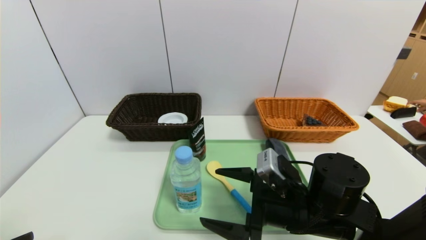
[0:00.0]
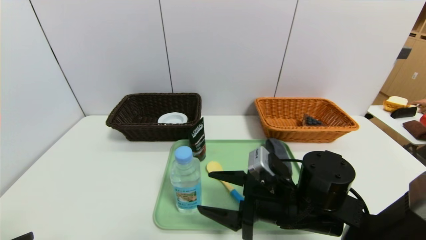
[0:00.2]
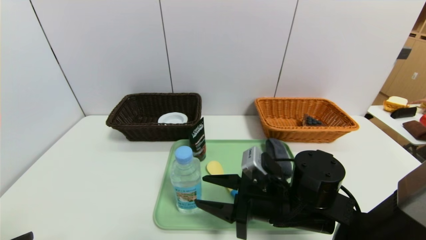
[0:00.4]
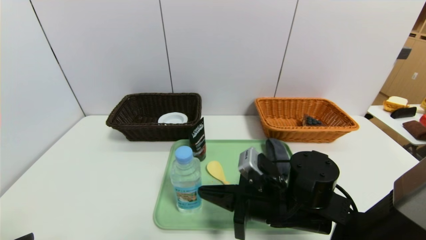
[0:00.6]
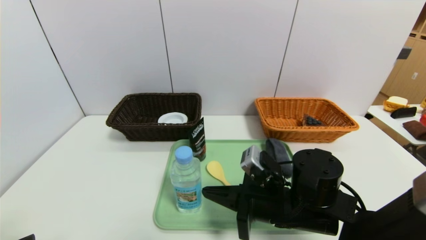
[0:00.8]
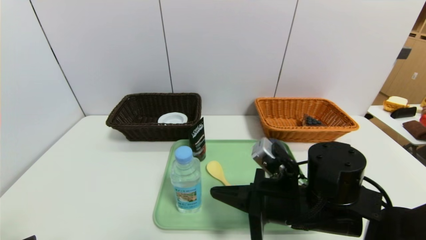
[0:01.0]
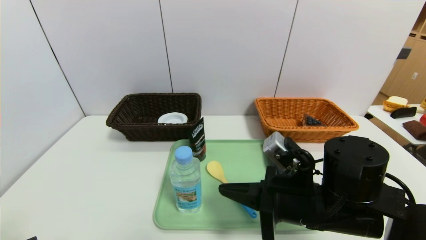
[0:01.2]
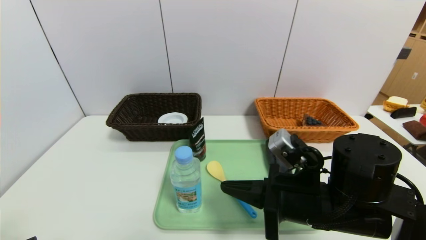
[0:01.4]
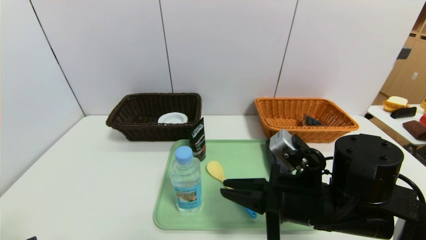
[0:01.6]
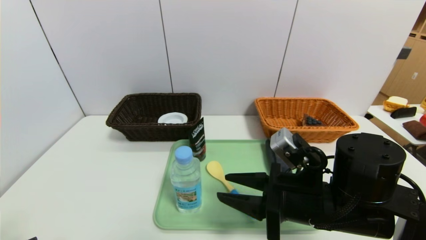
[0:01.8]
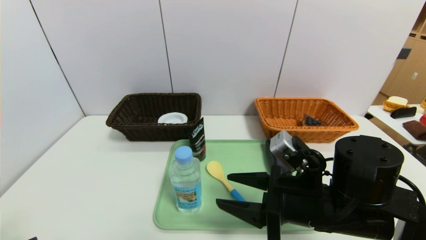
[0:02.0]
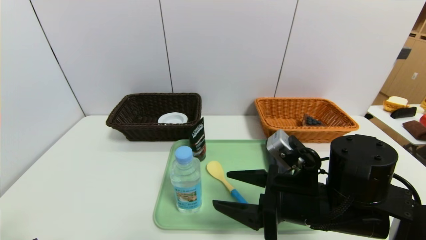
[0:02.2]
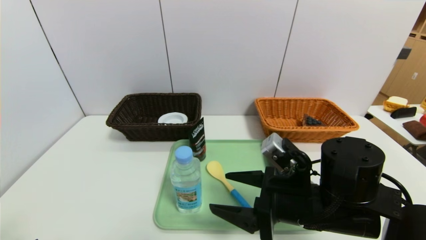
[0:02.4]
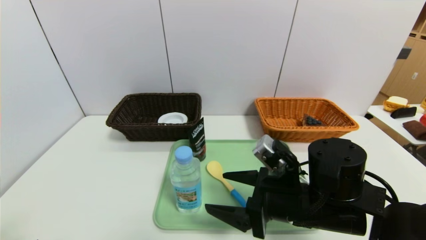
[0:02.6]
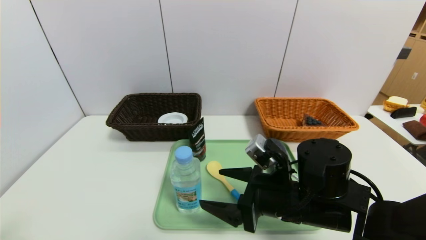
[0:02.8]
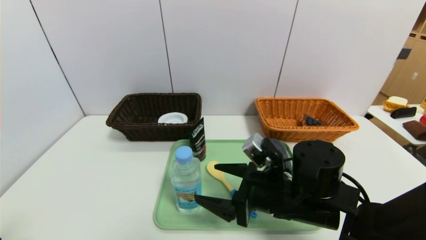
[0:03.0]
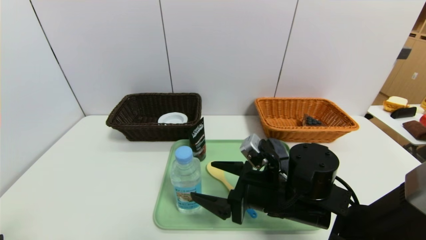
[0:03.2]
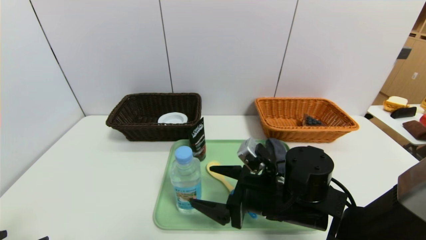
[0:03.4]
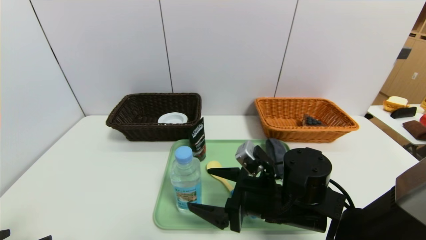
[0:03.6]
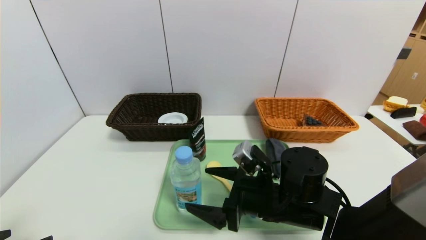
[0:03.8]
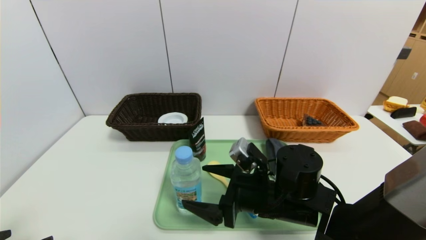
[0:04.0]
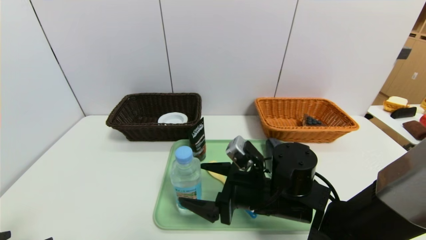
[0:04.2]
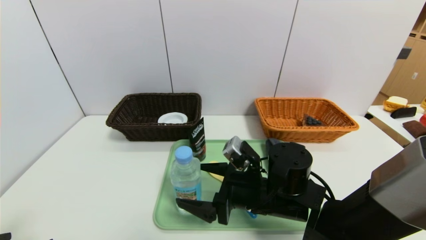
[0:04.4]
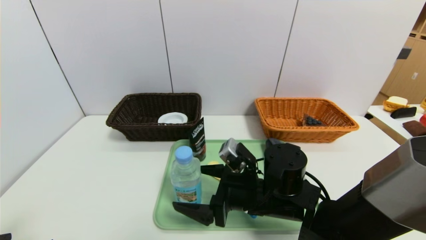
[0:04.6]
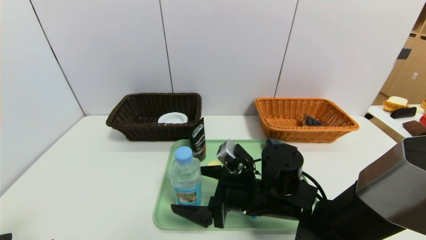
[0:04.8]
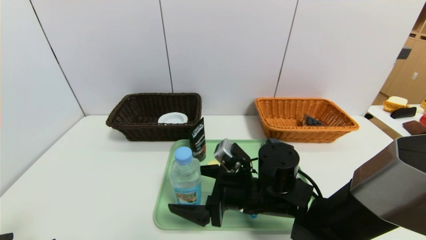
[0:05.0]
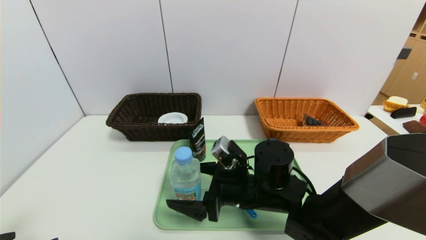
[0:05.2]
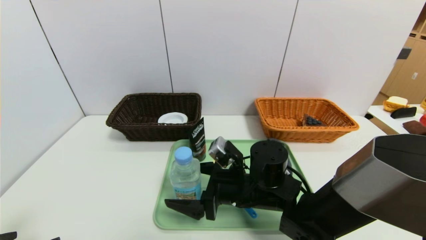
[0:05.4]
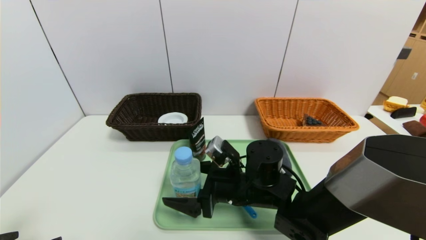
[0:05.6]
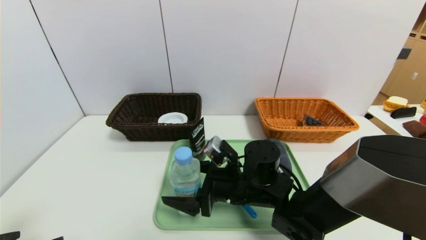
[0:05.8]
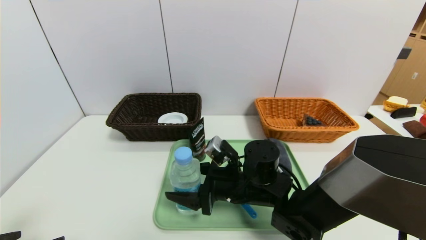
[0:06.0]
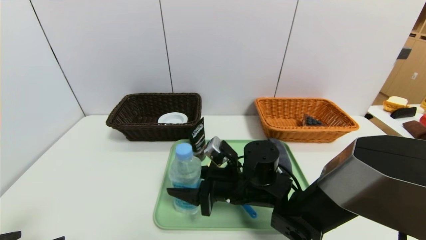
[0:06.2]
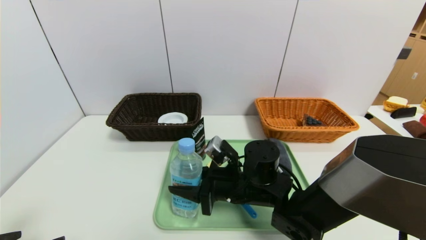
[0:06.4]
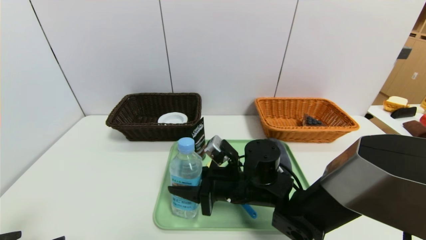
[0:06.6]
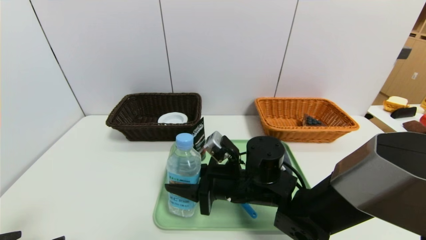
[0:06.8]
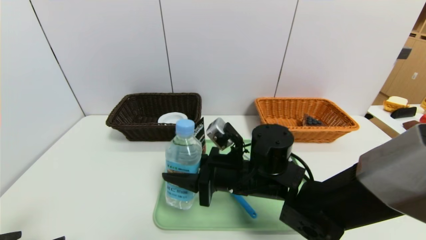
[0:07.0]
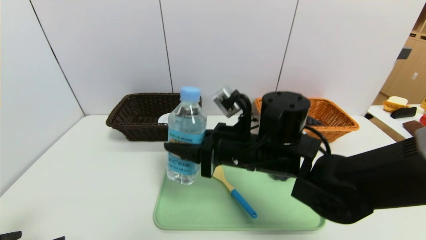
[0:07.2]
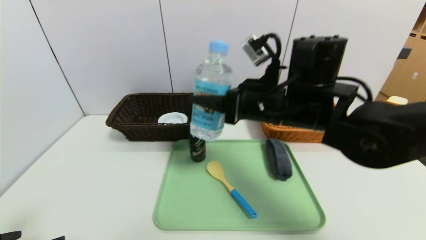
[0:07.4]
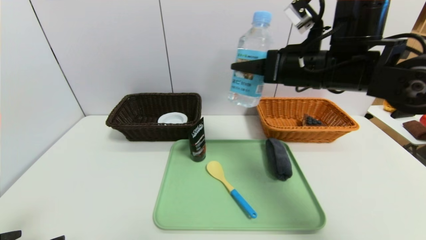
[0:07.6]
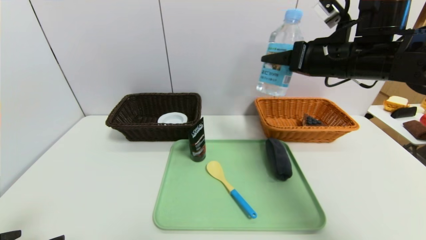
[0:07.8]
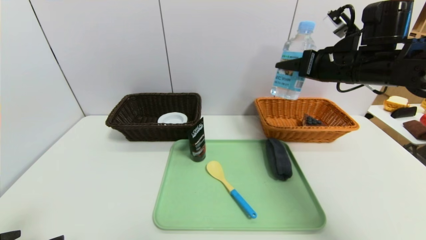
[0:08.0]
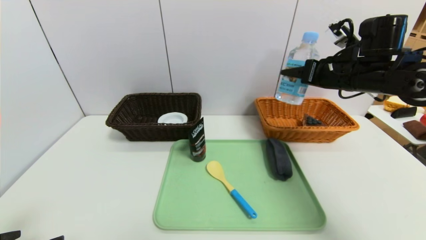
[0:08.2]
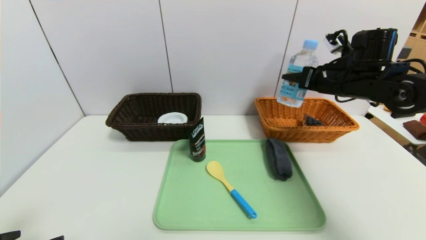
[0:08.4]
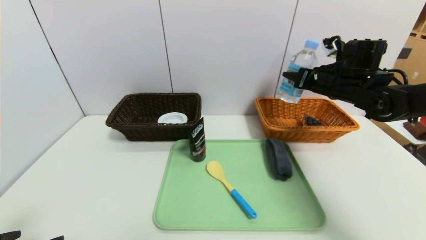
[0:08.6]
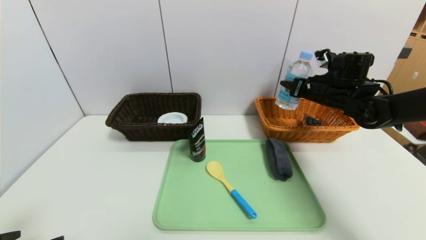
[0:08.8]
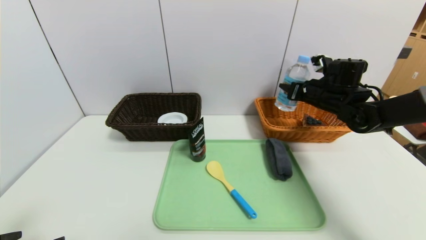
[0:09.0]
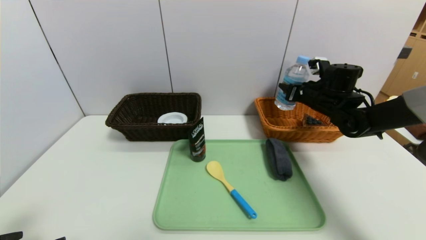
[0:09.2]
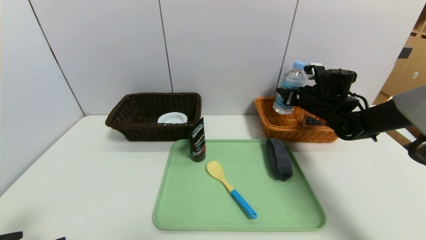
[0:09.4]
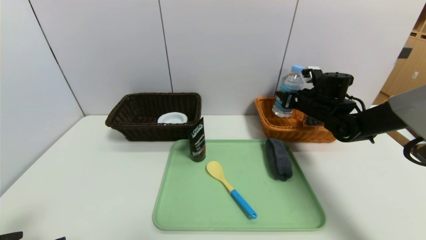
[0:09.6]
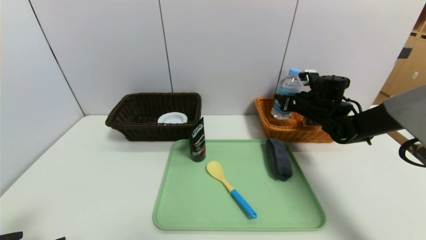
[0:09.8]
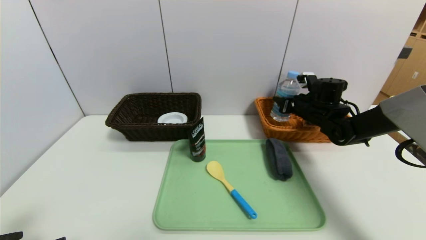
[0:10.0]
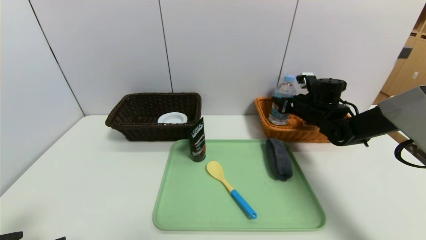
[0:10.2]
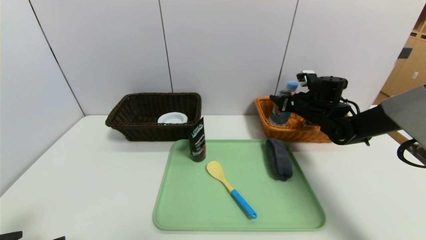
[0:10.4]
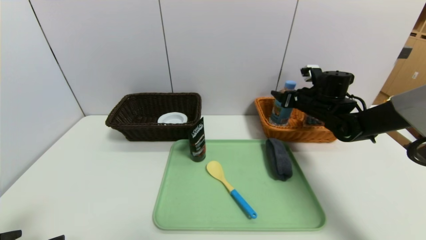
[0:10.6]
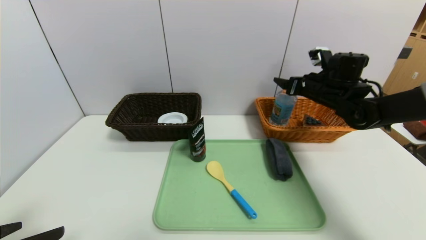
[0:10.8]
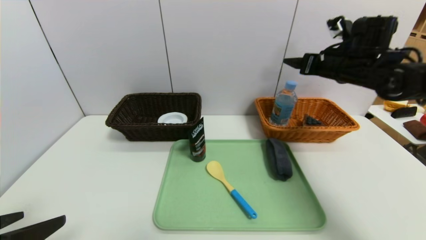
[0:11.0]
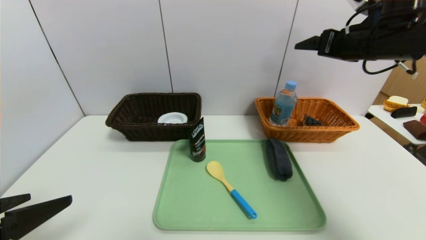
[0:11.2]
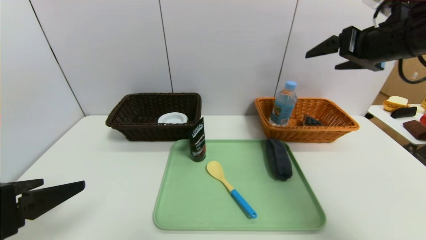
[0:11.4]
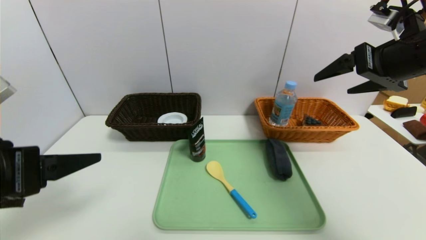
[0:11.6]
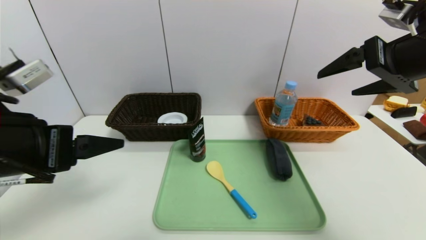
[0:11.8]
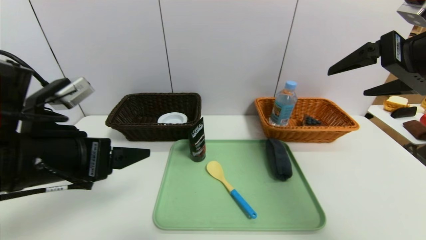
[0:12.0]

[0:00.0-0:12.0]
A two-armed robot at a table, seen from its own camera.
Task of the whole recording: place the food in the right basket with the right gripper, and place the non food items in the left basket with the left gripper.
Step, 0.0 to 11.2 s: Grasp the soda water and put it in the right basket.
0.0 to 1.6 s: The right gripper closes its fingers.
1.6 to 3.0 s: The right gripper changes place by about 5 cm, and opens its fingers.
3.0 to 4.4 s: The grippers move only a little.
4.4 to 6.0 s: The grippers make only small movements.
6.0 to 7.6 s: The right gripper is displaced upward and to the right by some 25 cm, and closes its fingers.
7.6 to 9.0 s: The right gripper shifts roughly 20 cm forward, downward and to the right.
9.0 to 10.4 s: The right gripper opens.
10.4 to 12.0 s: The right gripper moves backward and upward, about 30 cm, and opens, while the left gripper shifts some 15 cm forward, to the right and upward.

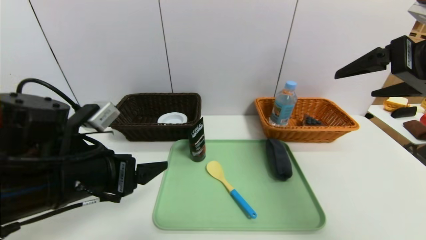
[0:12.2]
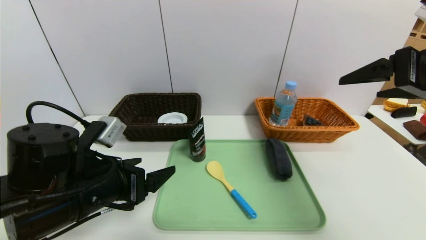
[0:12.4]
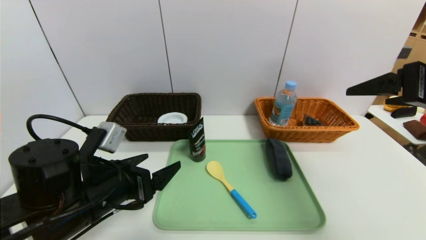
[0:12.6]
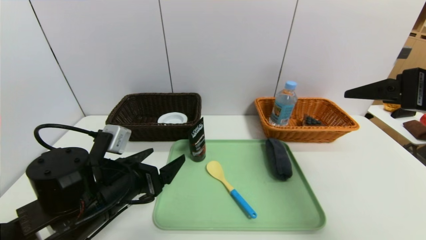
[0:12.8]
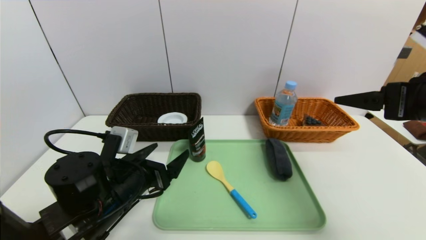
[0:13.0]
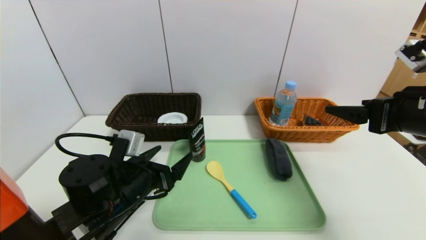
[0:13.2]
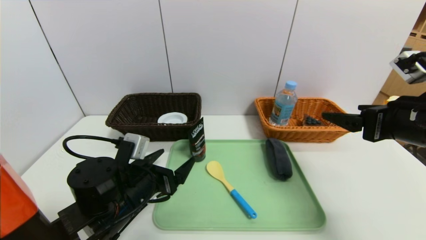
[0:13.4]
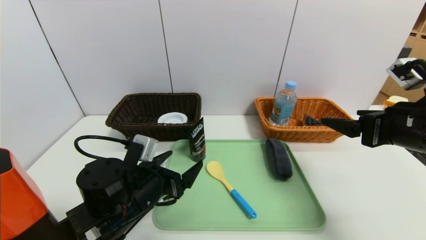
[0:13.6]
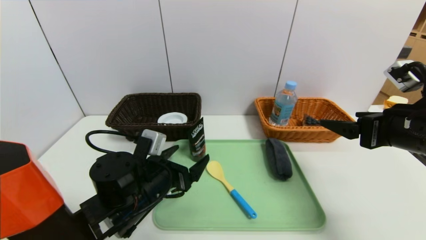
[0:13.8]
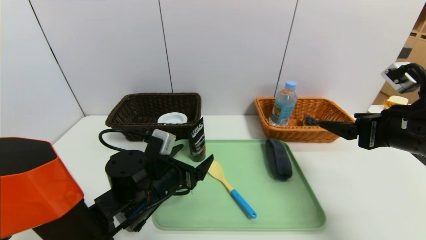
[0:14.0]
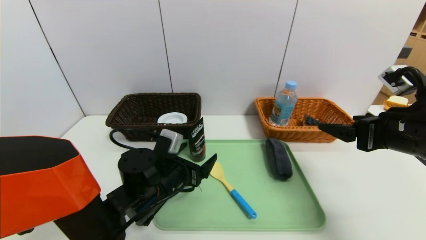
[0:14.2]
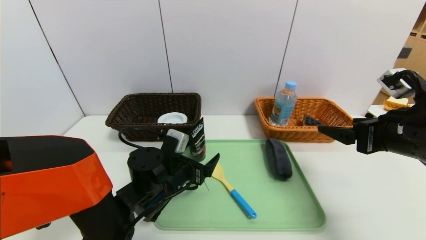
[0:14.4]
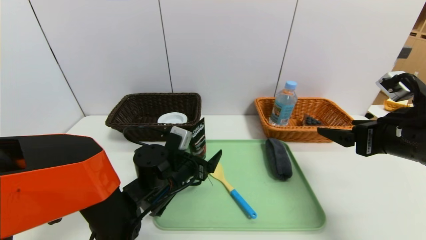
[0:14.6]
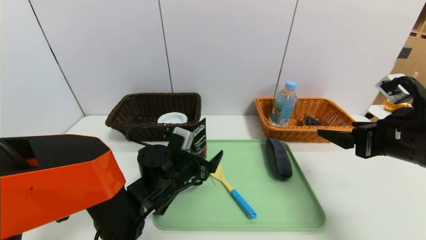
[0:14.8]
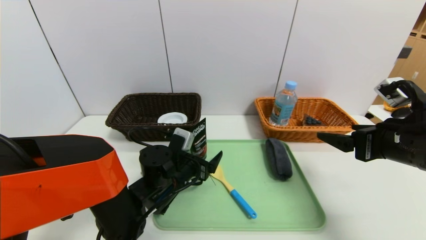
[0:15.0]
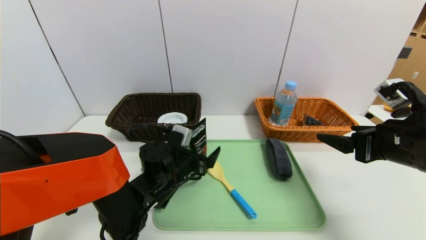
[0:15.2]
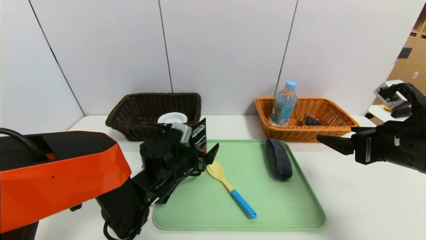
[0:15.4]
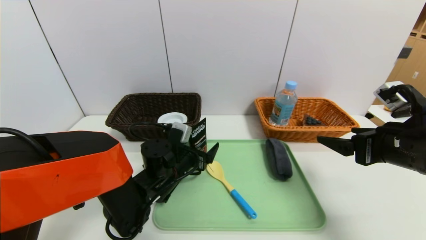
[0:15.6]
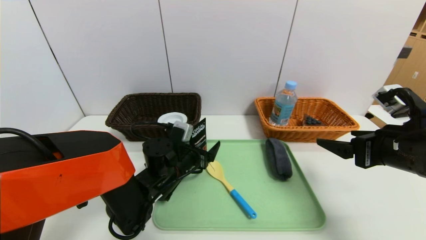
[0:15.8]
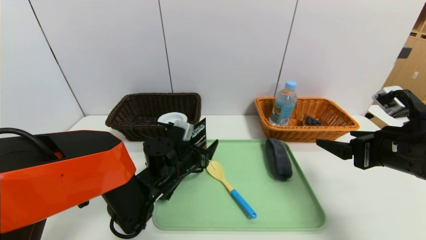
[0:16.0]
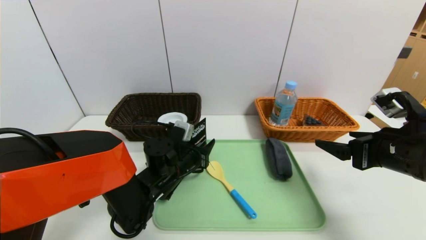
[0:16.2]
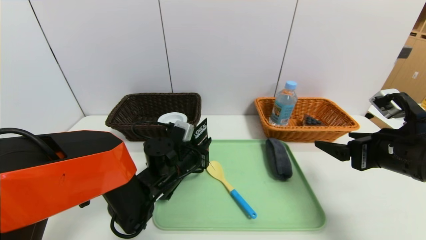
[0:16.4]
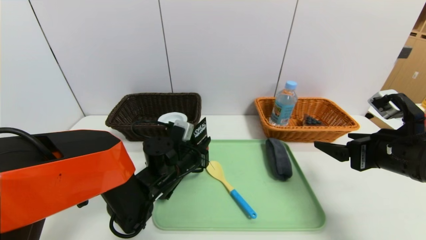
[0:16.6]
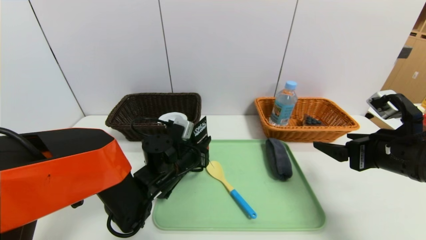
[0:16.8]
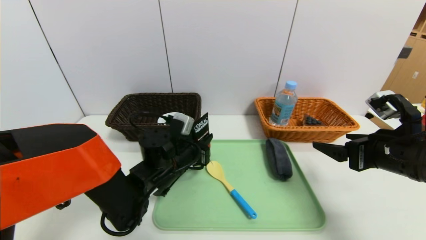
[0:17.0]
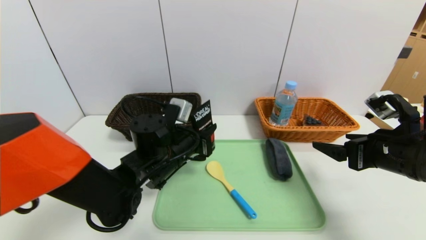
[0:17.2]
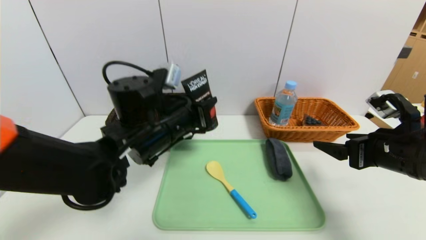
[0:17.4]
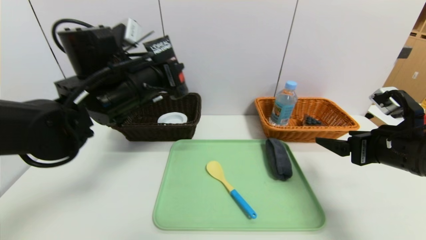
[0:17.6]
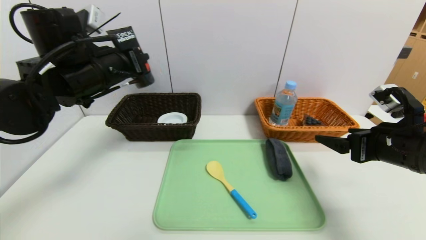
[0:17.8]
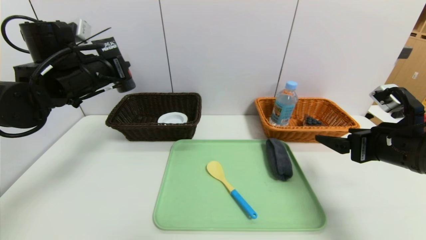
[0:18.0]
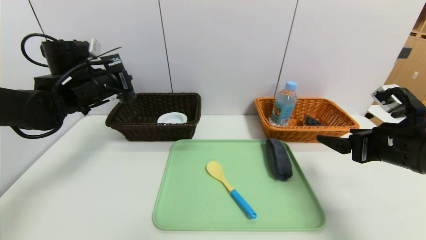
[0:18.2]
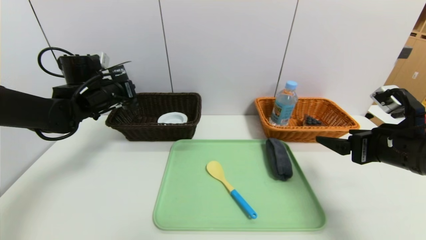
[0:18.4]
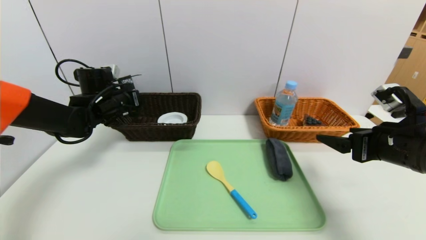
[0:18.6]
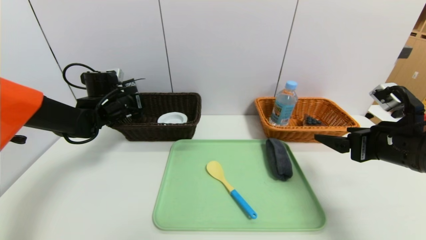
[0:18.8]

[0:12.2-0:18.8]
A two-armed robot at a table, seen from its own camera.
Task of the whole recording: place the food in the right basket with the right gripper, and place the non food items in the left basket with the left gripper.
12.2 to 13.8 s: The right gripper shifts about 10 cm downward. Meanwhile the left gripper travels downward, to the right and forward by approximately 15 cm.
13.8 to 15.4 s: The left gripper moves forward, some 5 cm.
15.4 to 17.2 s: The left gripper shifts some 5 cm upward, and closes up.
17.2 to 18.8 s: The left gripper moves to the left and forward, some 25 cm.
